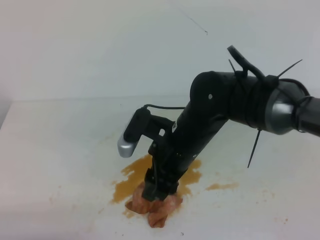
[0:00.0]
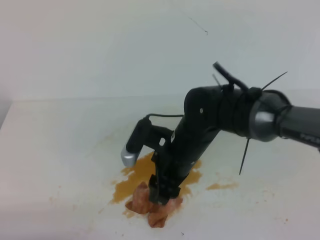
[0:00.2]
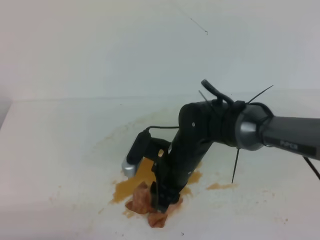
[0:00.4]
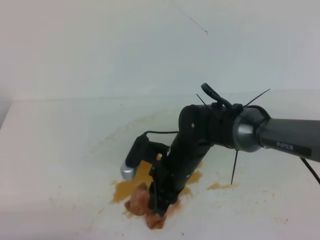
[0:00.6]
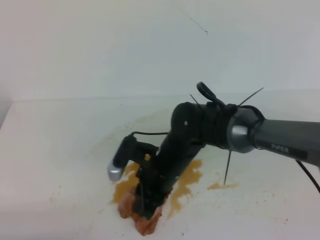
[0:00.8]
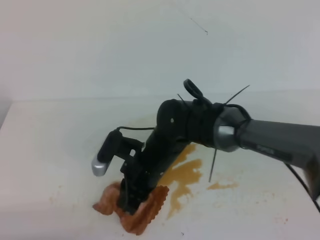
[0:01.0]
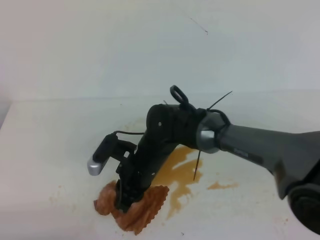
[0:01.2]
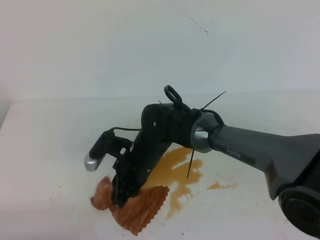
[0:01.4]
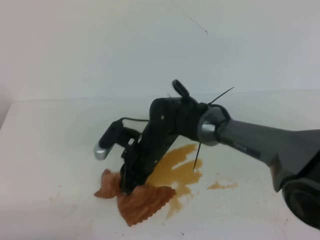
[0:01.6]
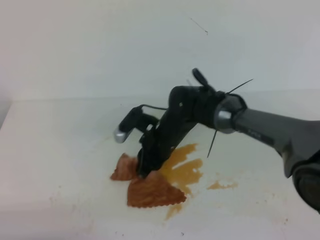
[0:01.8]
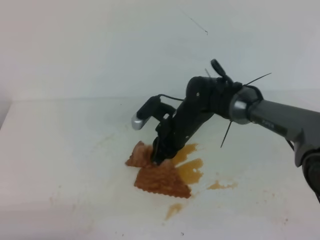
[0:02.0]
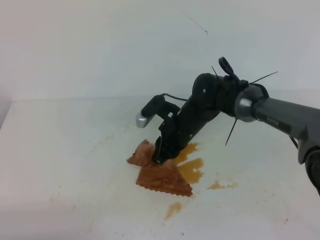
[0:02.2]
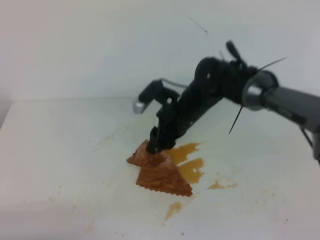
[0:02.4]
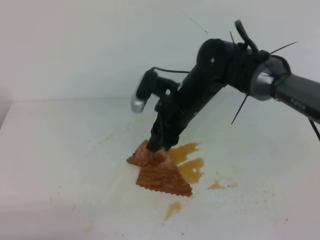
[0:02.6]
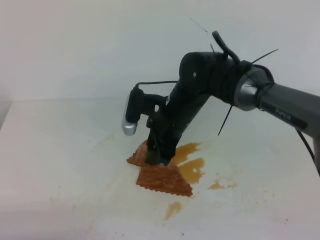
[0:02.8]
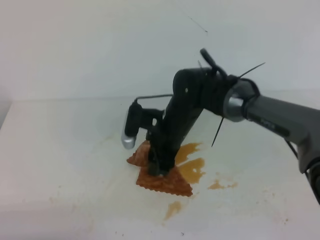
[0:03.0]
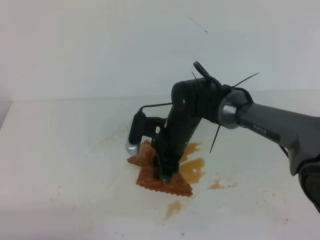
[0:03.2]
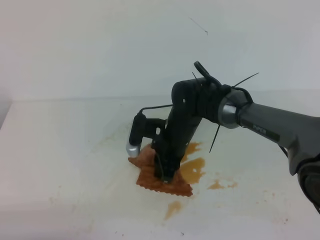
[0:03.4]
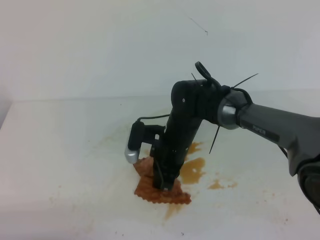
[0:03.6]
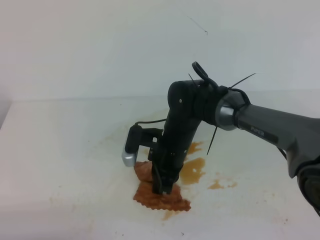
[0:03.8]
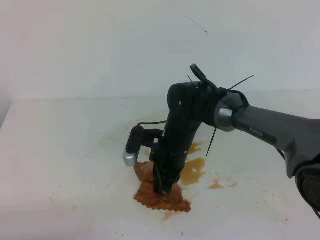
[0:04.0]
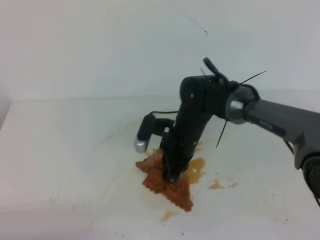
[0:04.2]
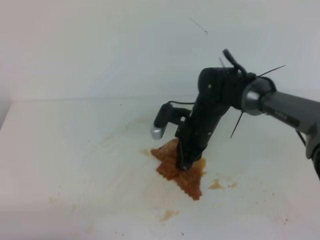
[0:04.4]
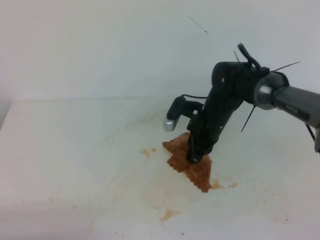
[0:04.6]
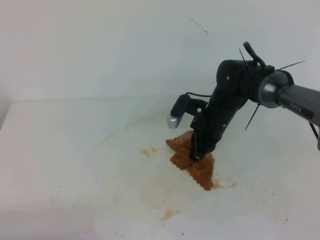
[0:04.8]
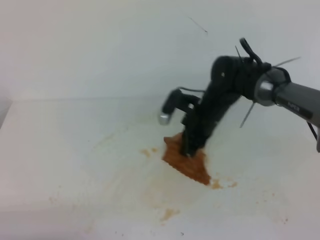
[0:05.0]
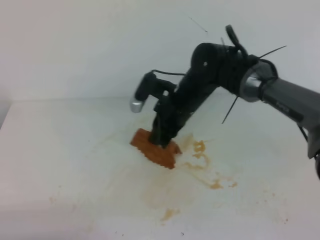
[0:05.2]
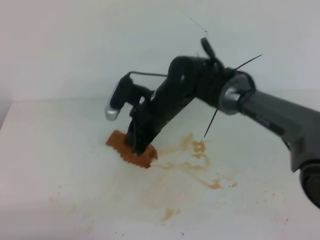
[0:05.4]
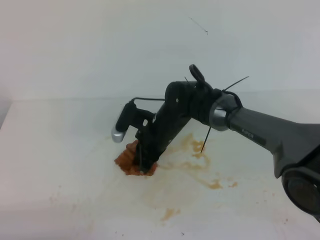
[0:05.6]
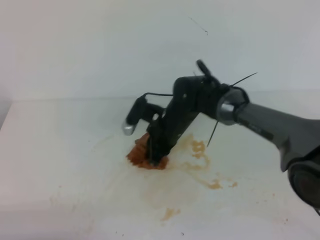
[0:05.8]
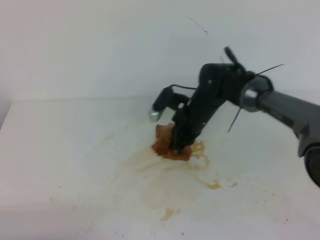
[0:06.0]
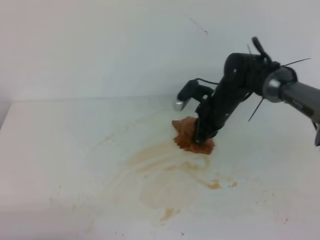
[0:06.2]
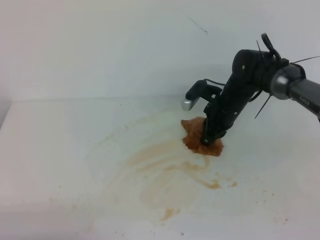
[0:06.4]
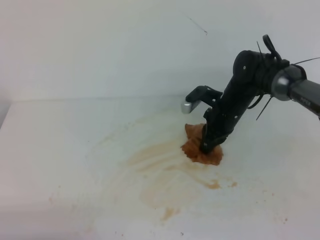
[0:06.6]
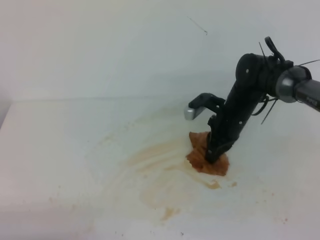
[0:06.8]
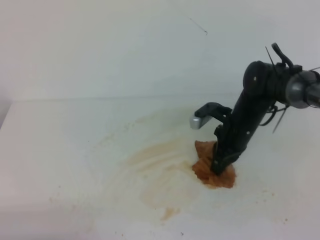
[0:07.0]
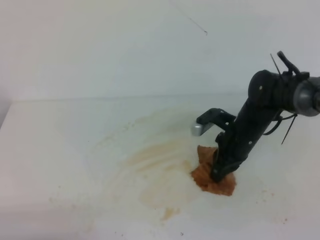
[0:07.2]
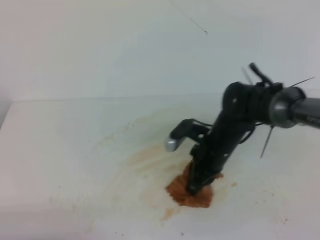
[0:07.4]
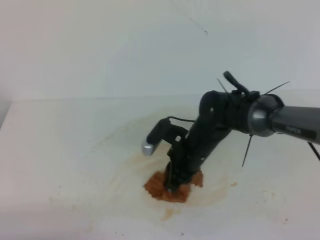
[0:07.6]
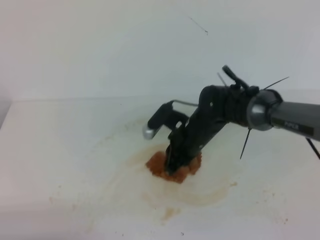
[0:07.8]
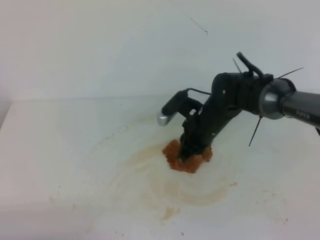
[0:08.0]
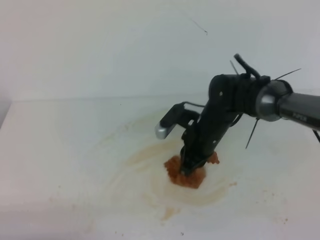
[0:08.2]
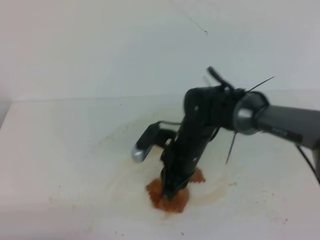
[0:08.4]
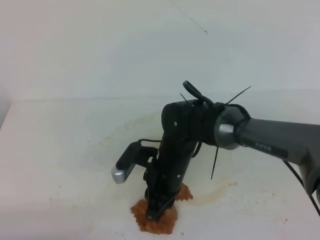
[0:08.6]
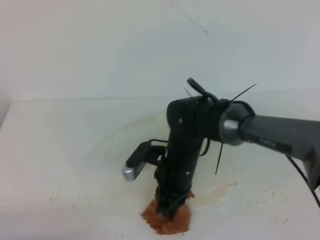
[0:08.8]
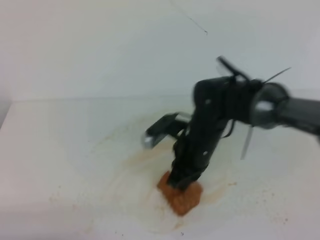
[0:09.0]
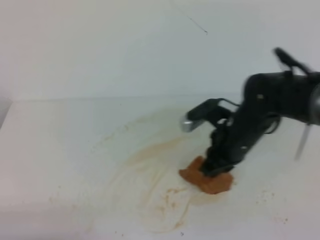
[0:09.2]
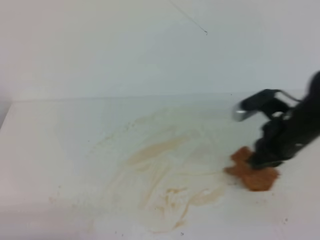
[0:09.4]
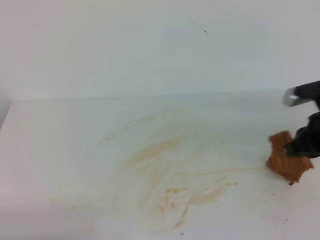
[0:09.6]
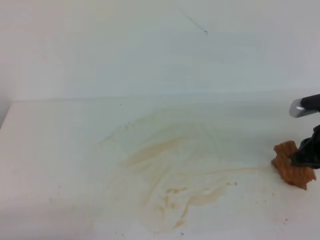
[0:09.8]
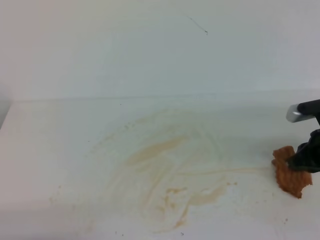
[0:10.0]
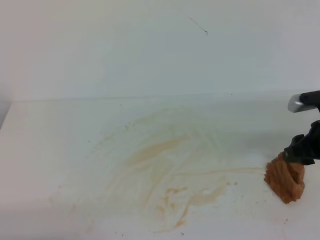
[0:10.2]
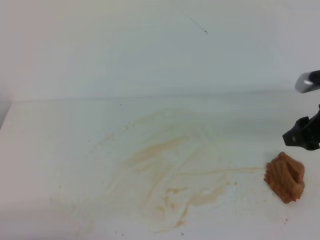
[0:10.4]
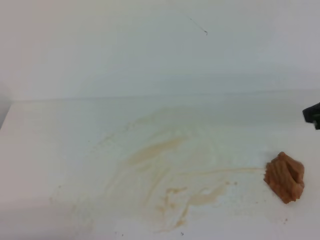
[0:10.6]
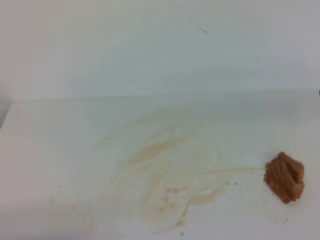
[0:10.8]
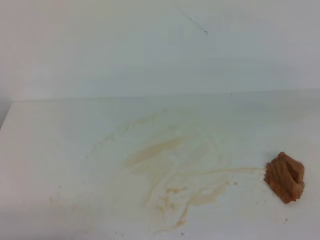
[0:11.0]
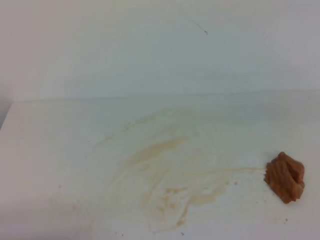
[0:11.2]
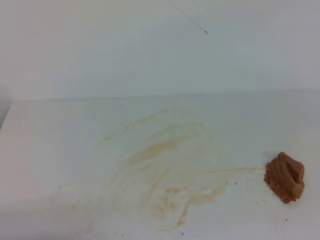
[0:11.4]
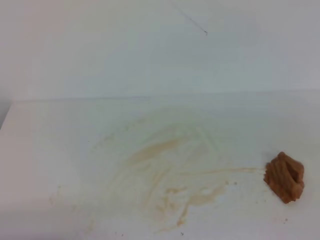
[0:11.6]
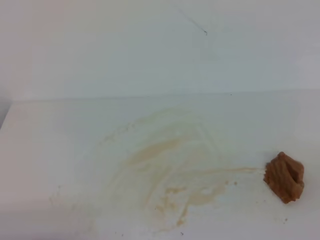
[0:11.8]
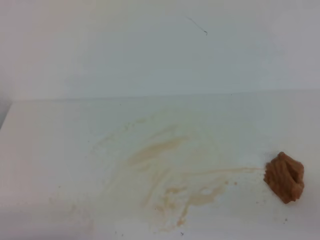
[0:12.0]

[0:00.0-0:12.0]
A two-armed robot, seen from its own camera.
0:00.0 to 0:01.6: The right gripper is displaced downward, forward and to the left by about 10 cm, and closes up.
0:01.6 to 0:03.0: The right gripper opens up.
0:03.0 to 0:04.4: The right gripper shifts approximately 5 cm to the right, and closes.
0:04.4 to 0:06.0: The right gripper reaches roughly 5 cm to the left, then returns.
0:06.0 to 0:07.6: The right gripper is displaced backward by roughly 10 cm.
0:07.6 to 0:09.0: The right gripper moves approximately 5 cm.
0:09.0 to 0:10.4: The right gripper moves to the right, some 20 cm, and opens its fingers.
0:10.4 to 0:12.0: The right gripper goes about 25 cm backward, and closes up.

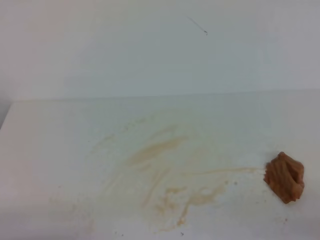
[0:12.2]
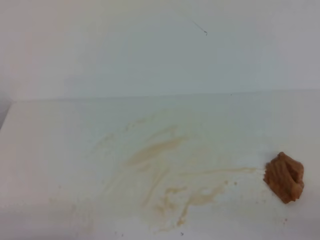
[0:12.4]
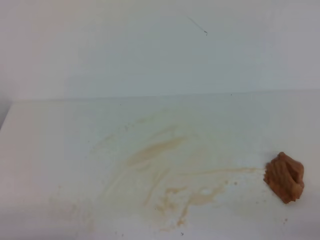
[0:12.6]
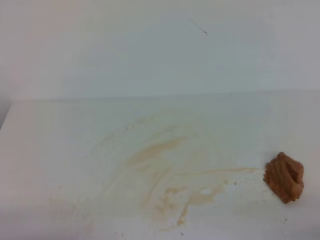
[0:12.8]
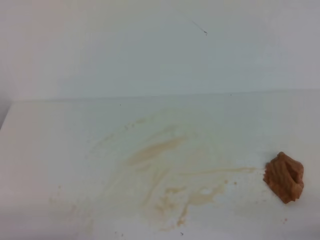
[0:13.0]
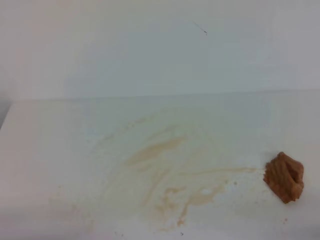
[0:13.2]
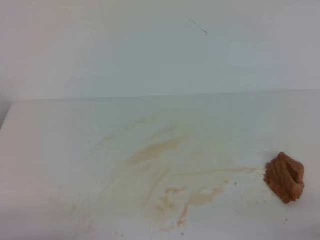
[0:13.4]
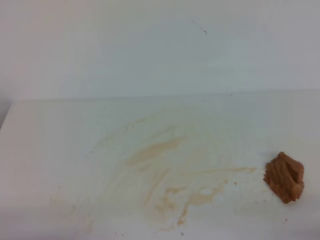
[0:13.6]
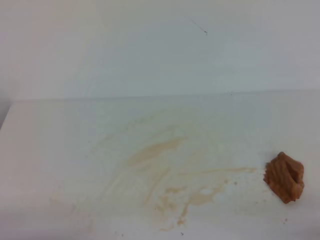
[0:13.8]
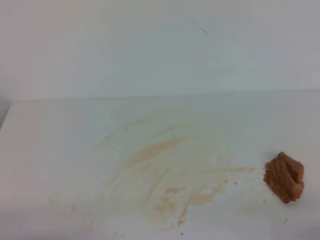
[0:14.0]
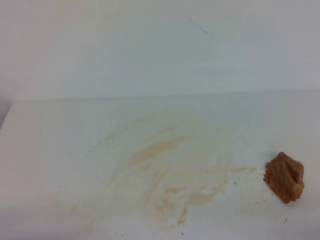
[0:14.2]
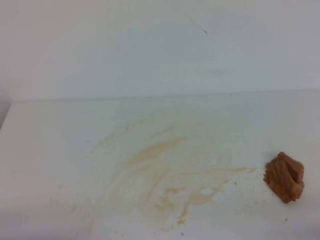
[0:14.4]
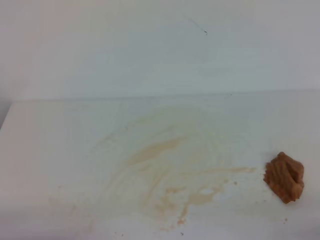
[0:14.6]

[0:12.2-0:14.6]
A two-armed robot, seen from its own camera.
0:13.4 to 0:14.6: The two grippers keep their place.
